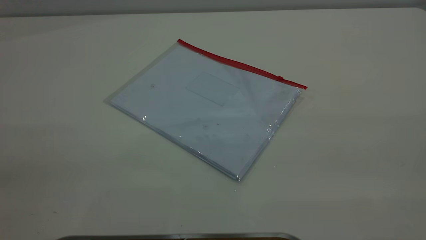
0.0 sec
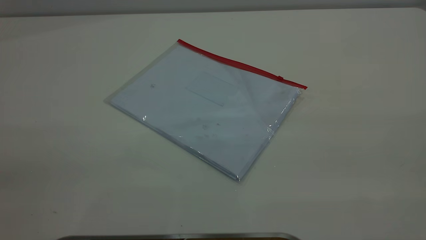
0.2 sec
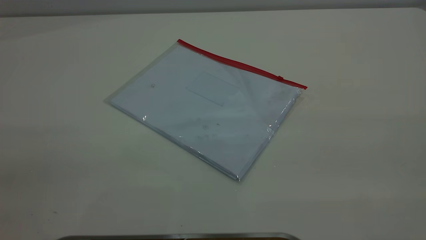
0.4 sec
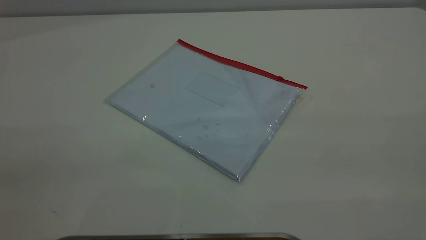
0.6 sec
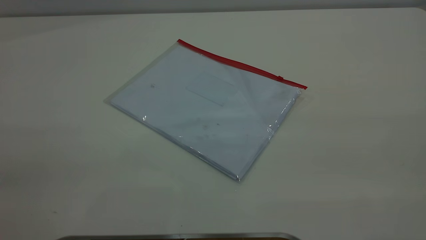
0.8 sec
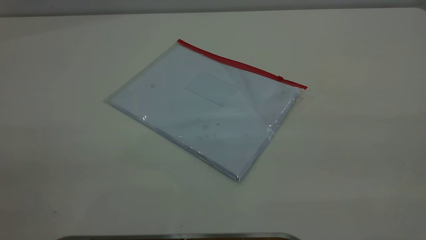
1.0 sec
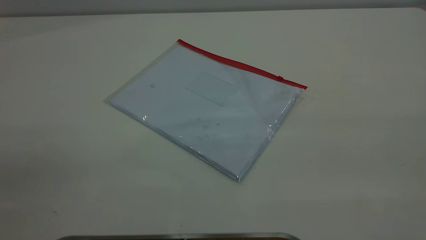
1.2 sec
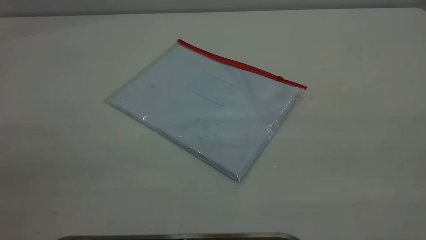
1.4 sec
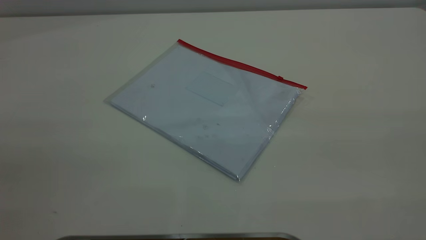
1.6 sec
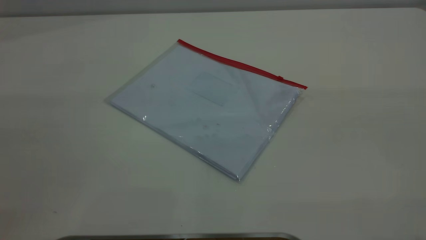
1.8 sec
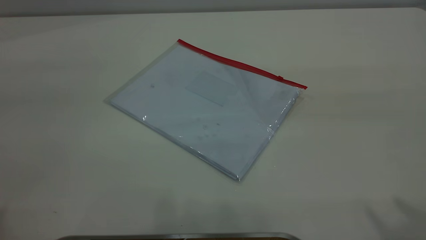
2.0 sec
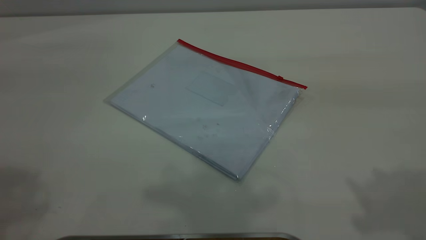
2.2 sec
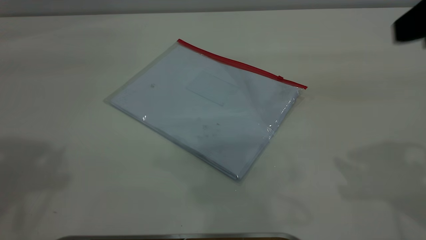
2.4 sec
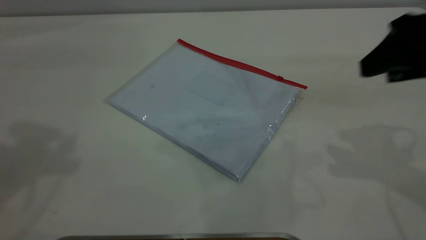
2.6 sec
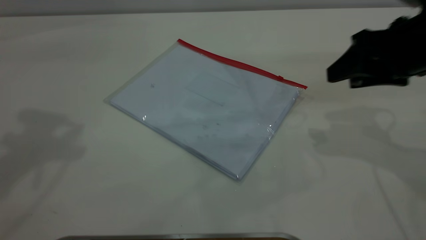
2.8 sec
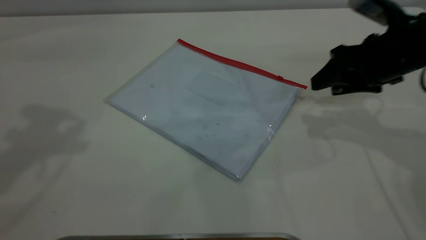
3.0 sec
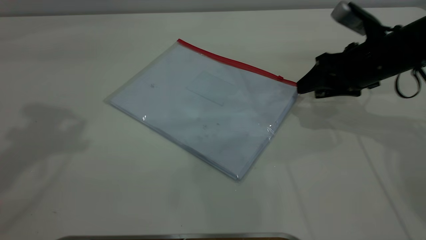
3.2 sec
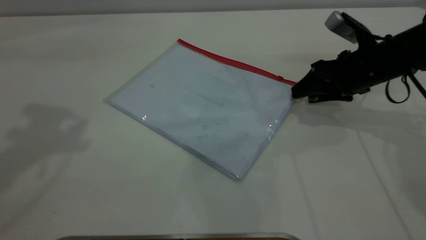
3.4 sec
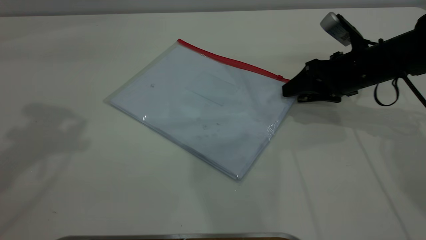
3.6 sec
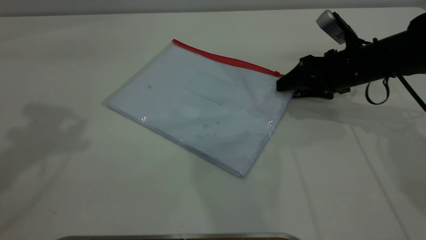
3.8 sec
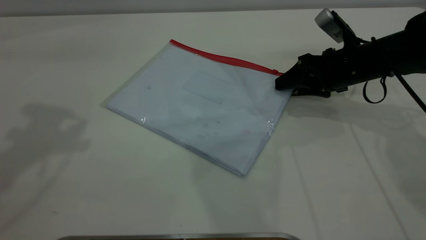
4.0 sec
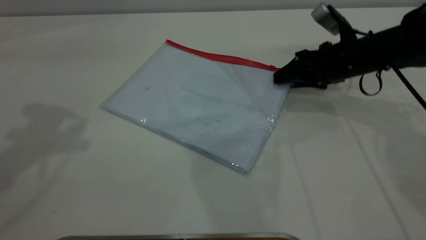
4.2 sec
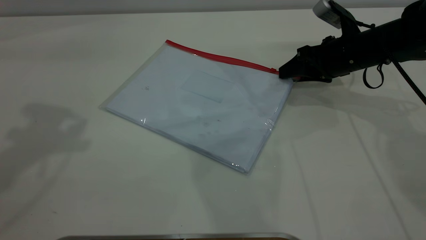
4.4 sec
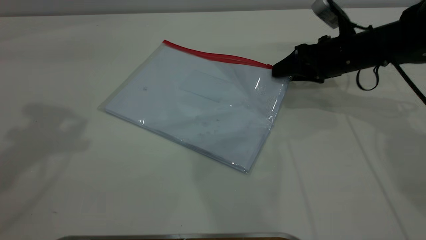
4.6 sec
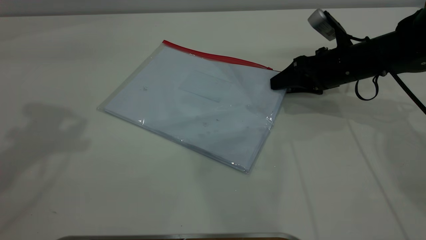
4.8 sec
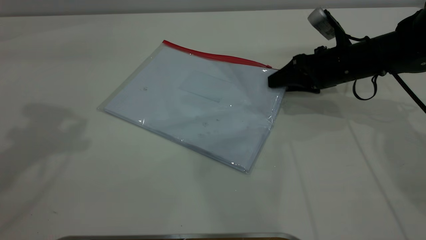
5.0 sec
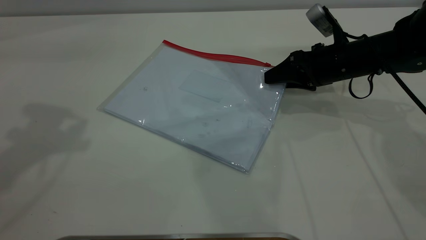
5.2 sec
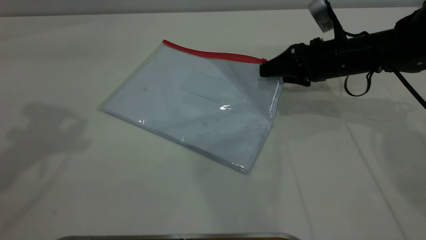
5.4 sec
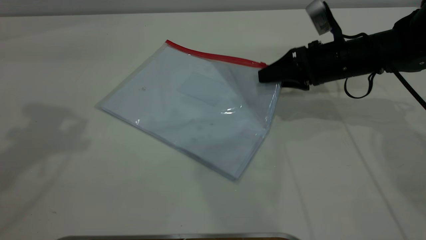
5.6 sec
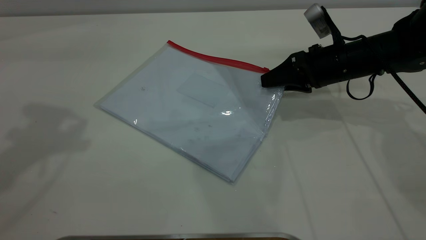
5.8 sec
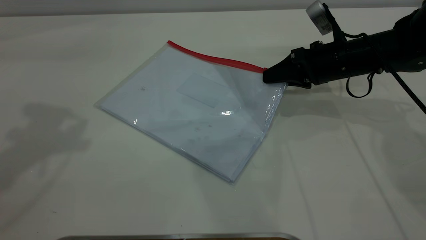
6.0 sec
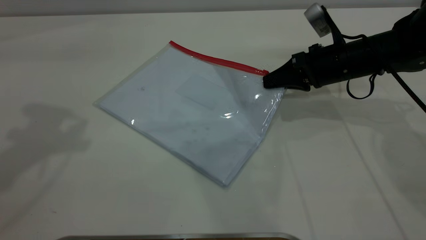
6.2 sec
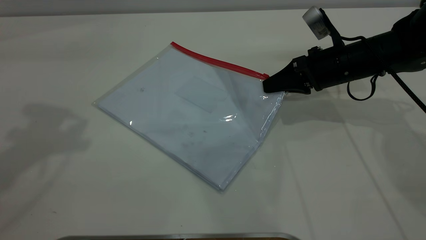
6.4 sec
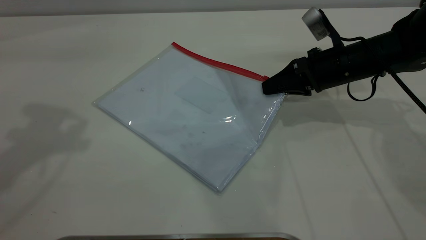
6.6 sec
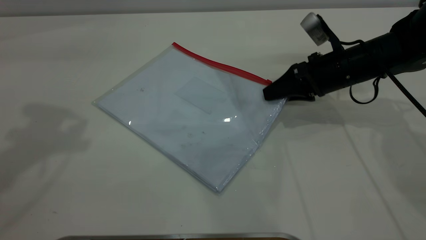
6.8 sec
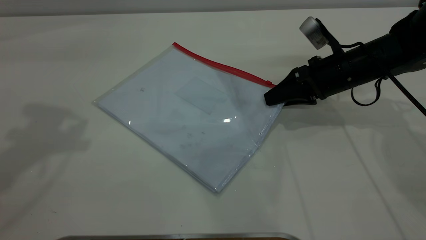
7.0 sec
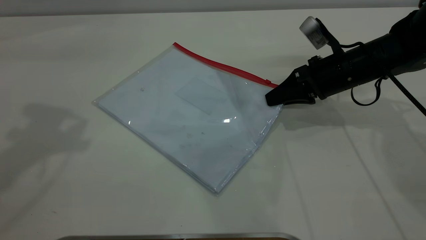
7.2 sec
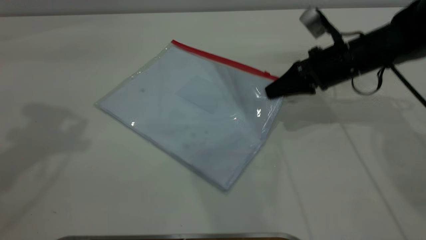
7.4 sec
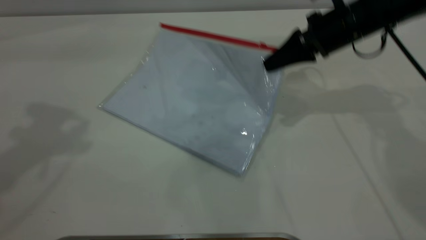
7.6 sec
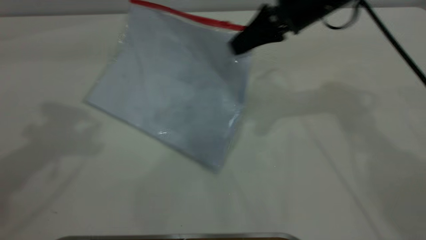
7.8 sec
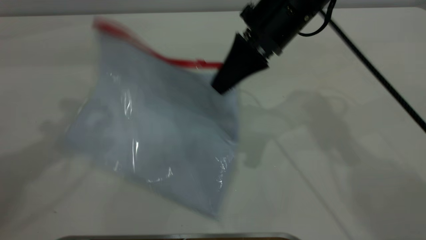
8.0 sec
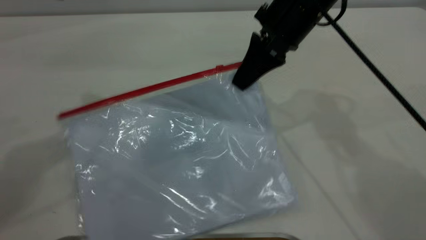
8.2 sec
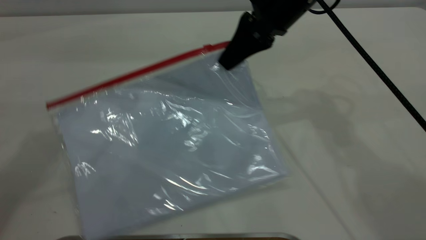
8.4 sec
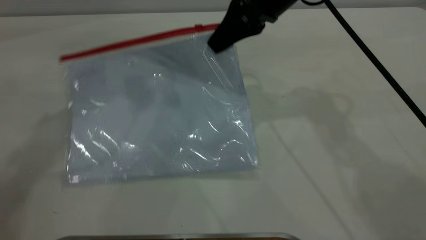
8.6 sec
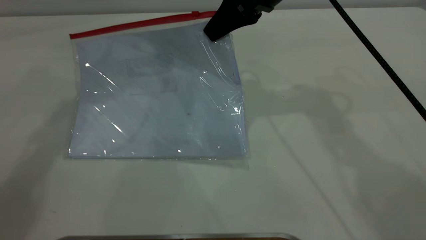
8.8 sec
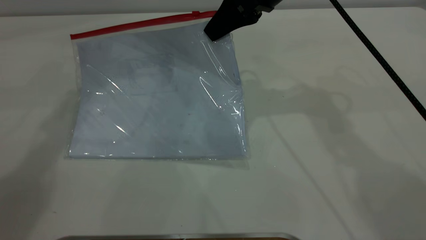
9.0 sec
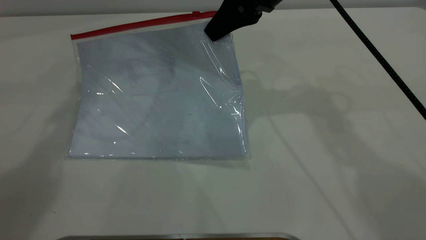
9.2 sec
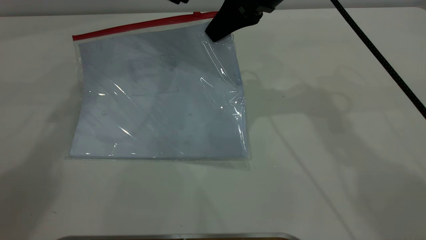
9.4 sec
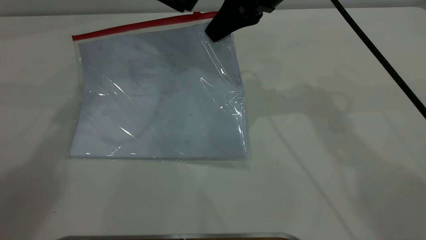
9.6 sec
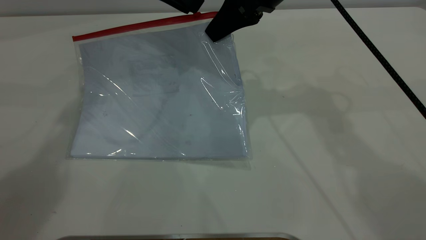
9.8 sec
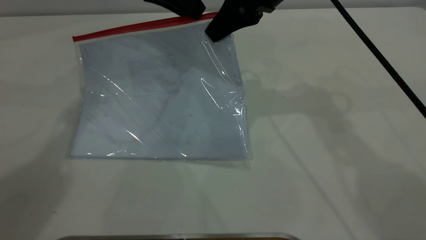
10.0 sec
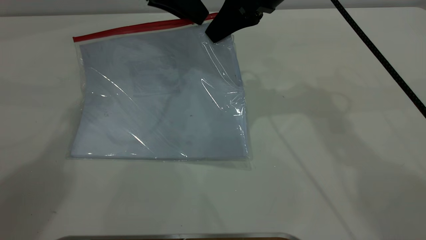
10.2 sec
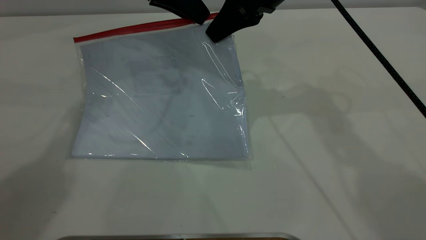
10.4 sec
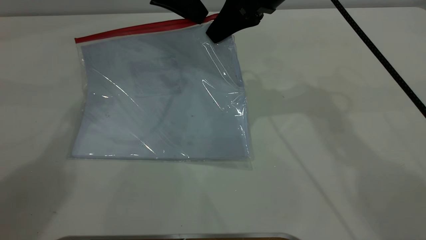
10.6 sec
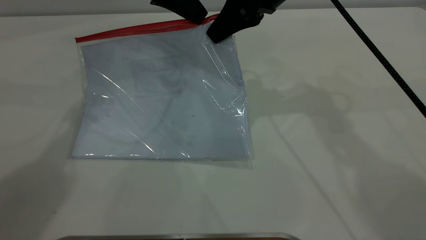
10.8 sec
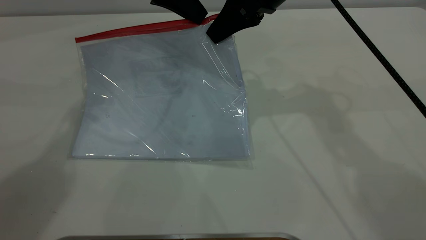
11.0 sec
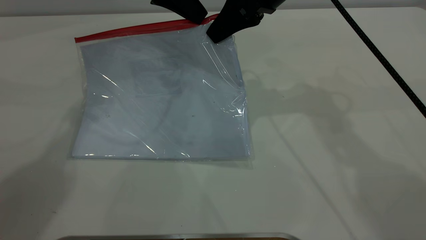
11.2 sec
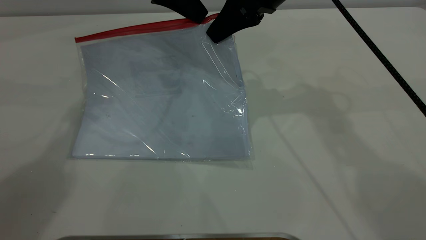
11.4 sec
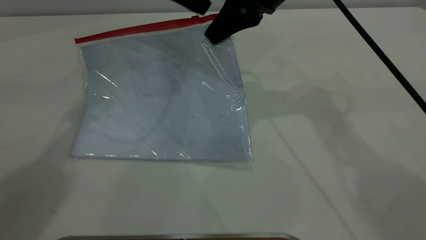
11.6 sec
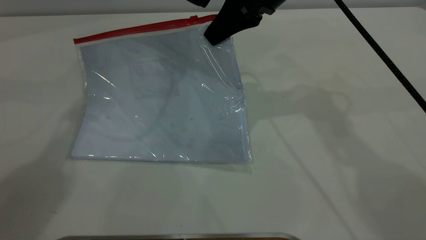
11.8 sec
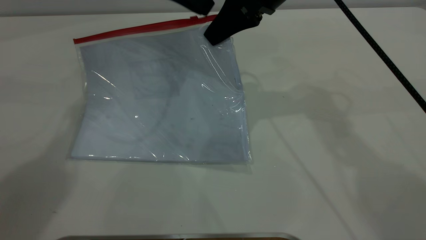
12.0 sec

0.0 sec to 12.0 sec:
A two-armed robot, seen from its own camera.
Step, 0.0 sec to 8.8 sec: Pick up the transparent plastic bag with the right gripper.
1.6 sec to 3.0 sec: The right gripper is displaced forward and downward by approximately 40 cm.
3.0 sec to 4.4 sec: The right gripper heads forward and downward, covering about 10 cm.
4.4 sec to 6.0 sec: The right gripper closes its fingers.
6.0 sec to 7.6 sec: The right gripper shifts approximately 10 cm upward.
7.6 sec to 9.0 sec: The left gripper shifts roughly 20 cm forward, to the right and downward. The right gripper travels to the left and upward by about 10 cm.
9.0 sec to 10.4 sec: The left gripper closes its fingers.
10.4 sec to 12.0 sec: The left gripper closes and opens again.

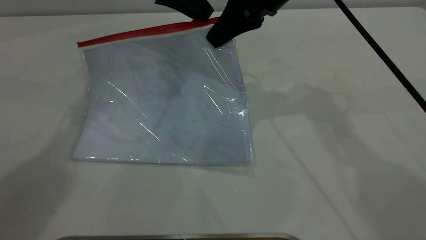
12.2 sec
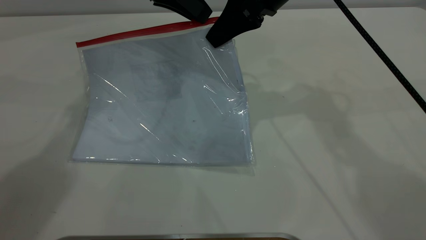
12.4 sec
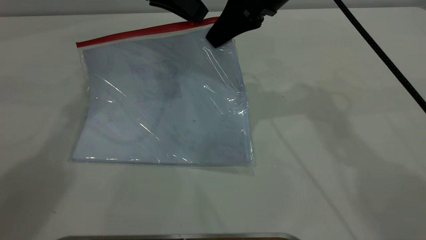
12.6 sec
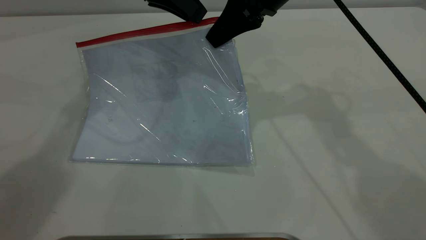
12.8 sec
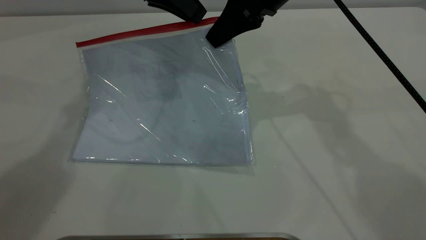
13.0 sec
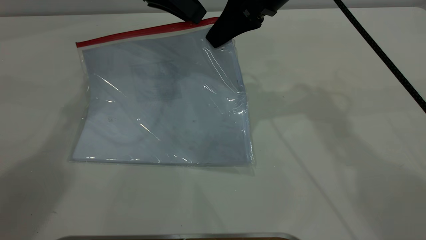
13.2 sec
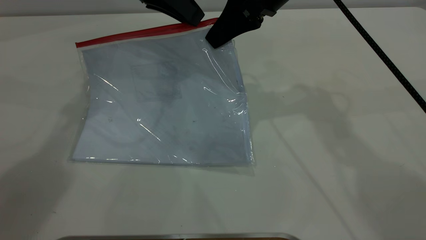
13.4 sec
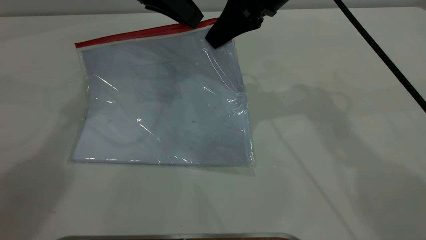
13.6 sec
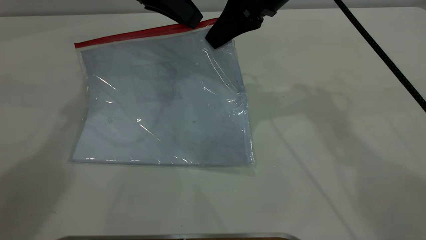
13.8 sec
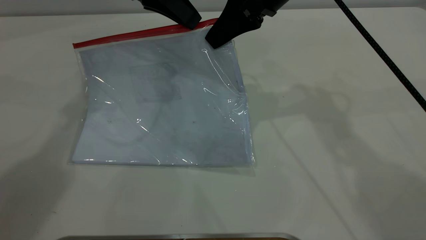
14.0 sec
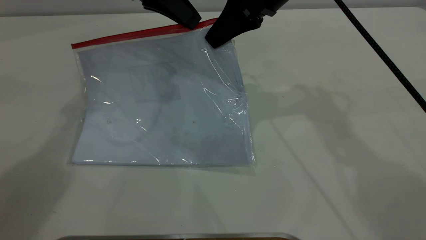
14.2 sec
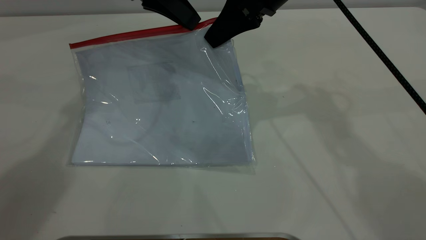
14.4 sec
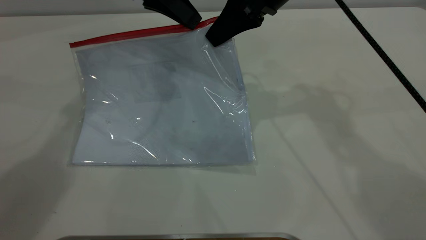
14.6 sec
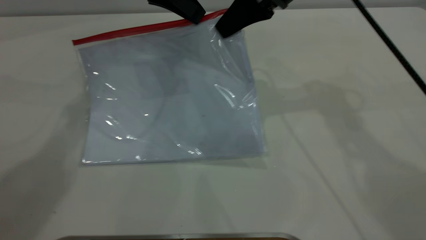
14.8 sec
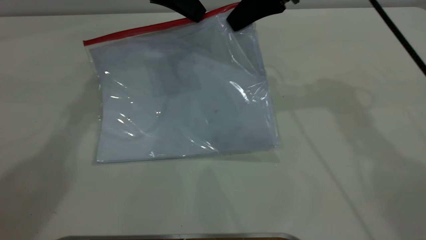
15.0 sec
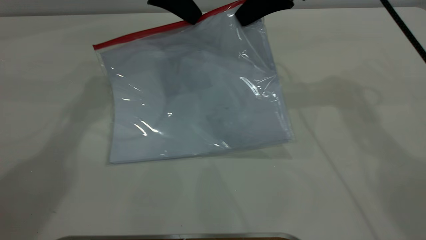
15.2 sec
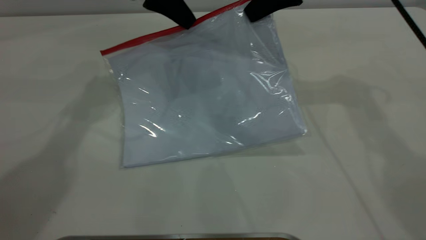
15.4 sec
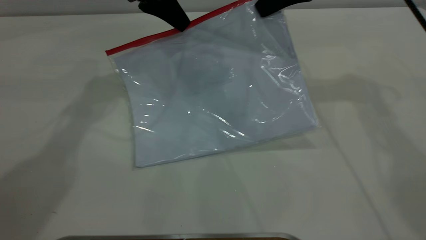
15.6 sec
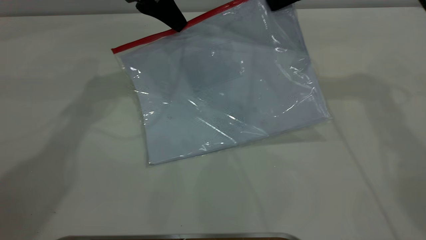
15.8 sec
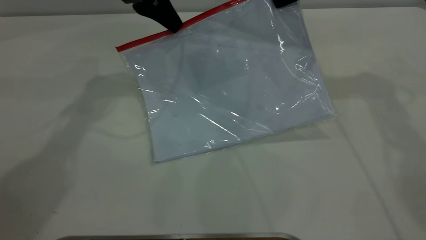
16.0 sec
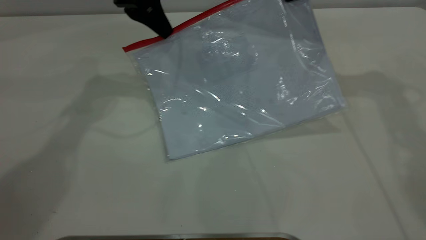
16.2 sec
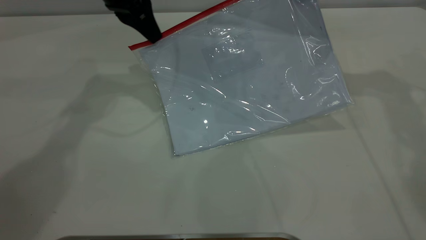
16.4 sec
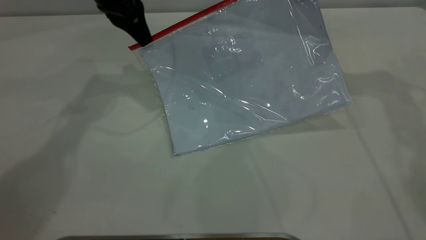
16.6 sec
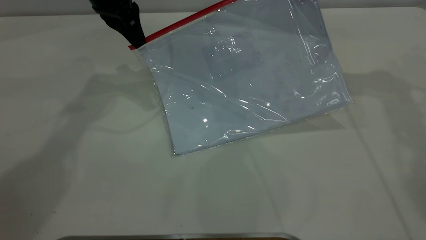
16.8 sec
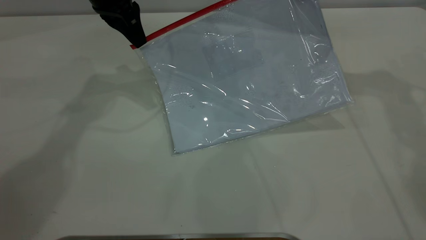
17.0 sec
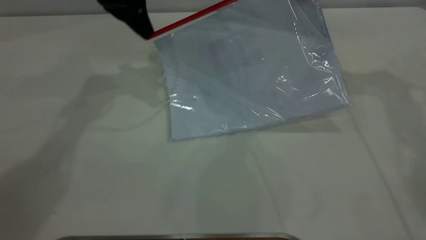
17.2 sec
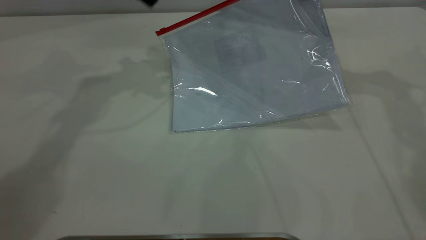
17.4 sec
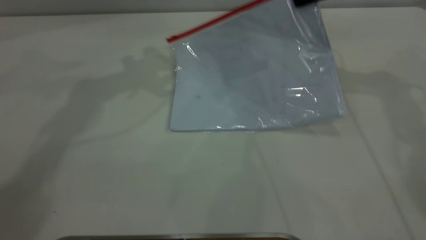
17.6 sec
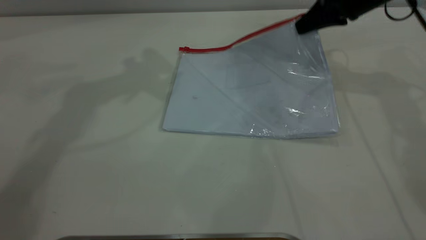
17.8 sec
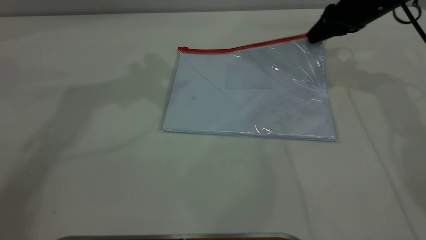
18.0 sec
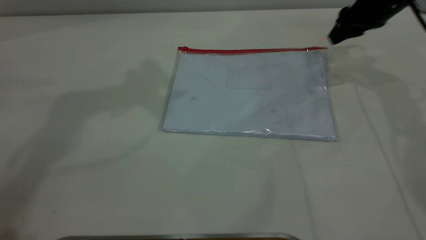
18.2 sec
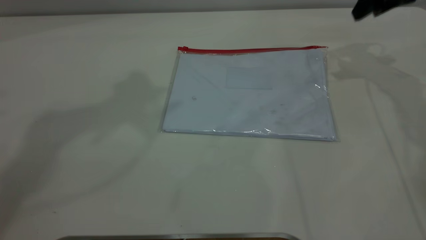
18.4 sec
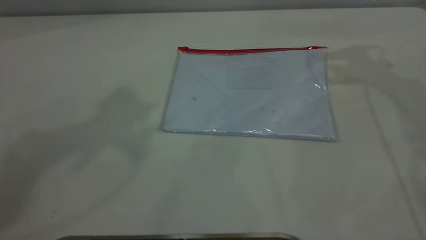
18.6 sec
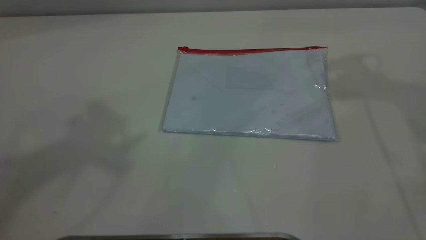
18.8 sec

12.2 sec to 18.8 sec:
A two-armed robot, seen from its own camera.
Step, 12.2 sec to 17.2 sec: Pulling up the zipper on the transparent plastic bag with the left gripper to close it.
Step, 17.6 sec to 18.8 sec: Place the transparent plastic bag.
12.2 sec to 13.8 sec: There are only small adjustments of the grippers.
13.8 sec to 15.4 sec: The left gripper closes; the right gripper shifts roughly 5 cm to the right.
15.4 sec to 17.2 sec: The left gripper opens its fingers, while the right gripper shifts roughly 5 cm to the right.
17.2 sec to 18.8 sec: The right gripper travels upward by about 10 cm, and opens its fingers; the left gripper shifts approximately 40 cm upward and backward, and opens its fingers.
